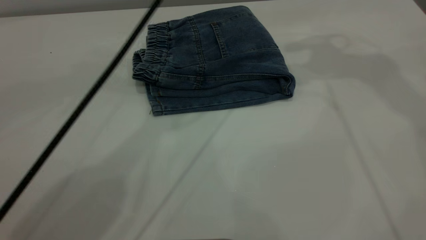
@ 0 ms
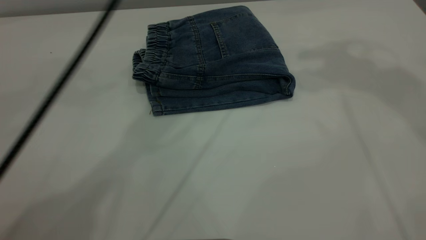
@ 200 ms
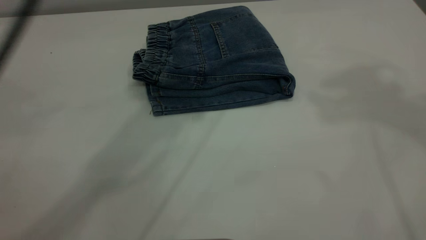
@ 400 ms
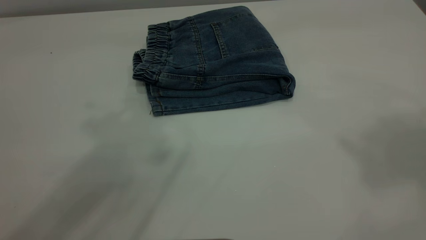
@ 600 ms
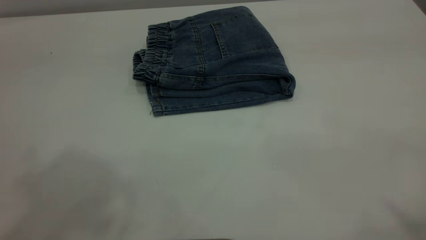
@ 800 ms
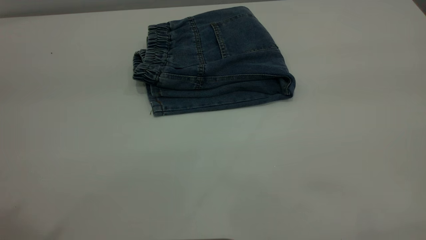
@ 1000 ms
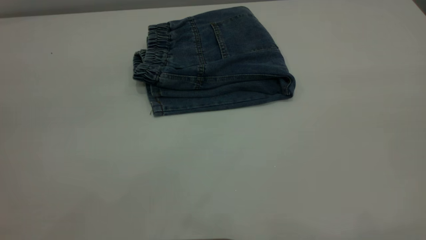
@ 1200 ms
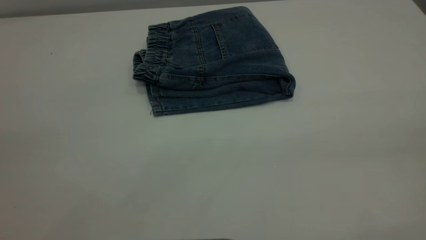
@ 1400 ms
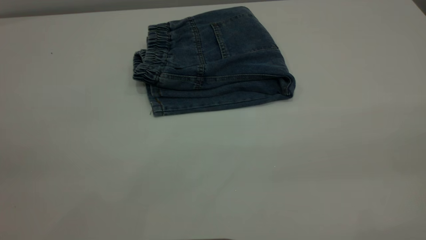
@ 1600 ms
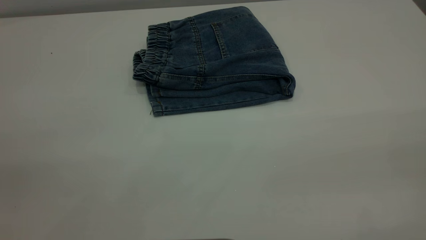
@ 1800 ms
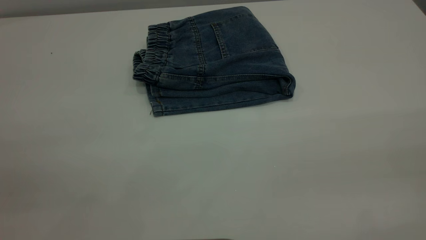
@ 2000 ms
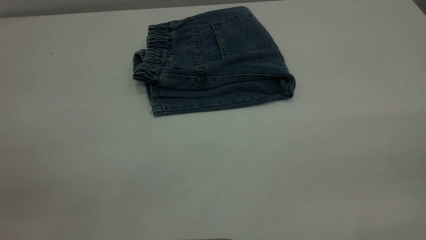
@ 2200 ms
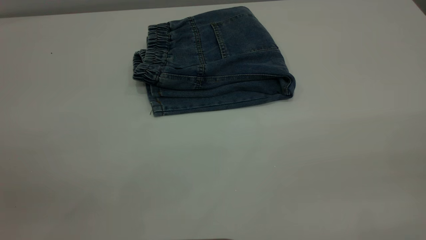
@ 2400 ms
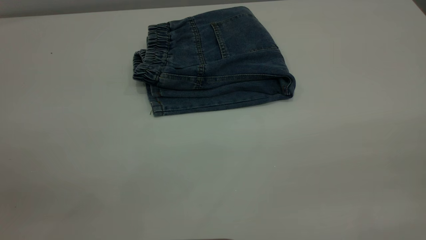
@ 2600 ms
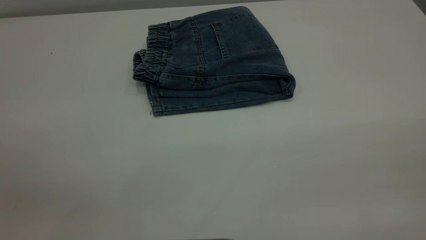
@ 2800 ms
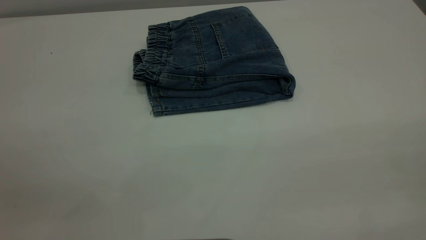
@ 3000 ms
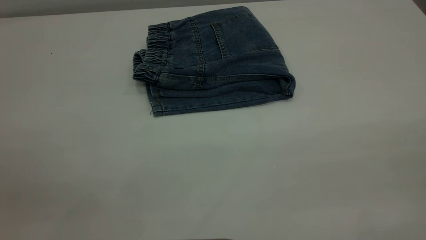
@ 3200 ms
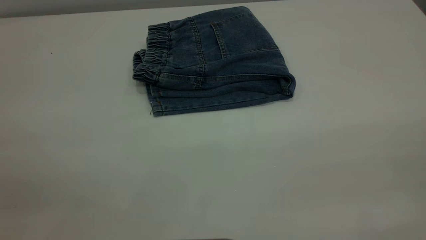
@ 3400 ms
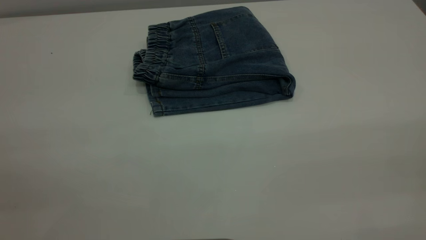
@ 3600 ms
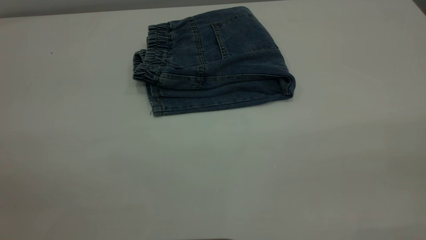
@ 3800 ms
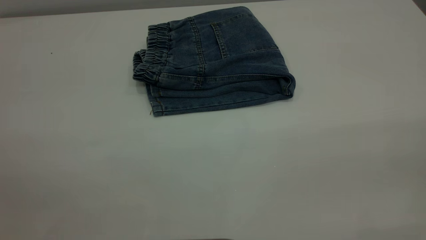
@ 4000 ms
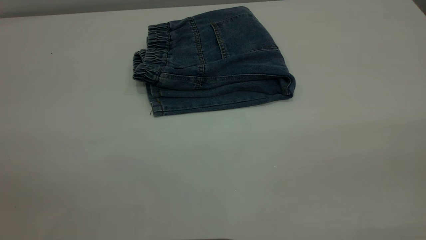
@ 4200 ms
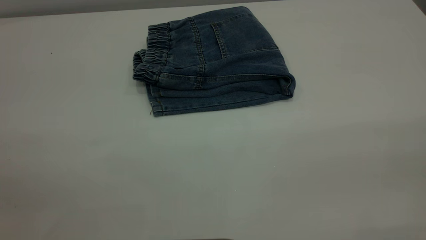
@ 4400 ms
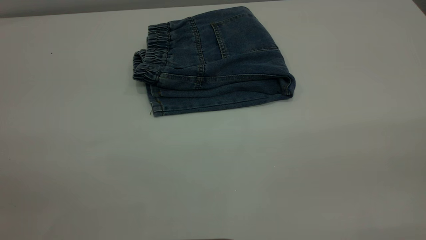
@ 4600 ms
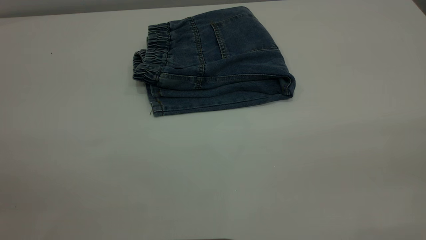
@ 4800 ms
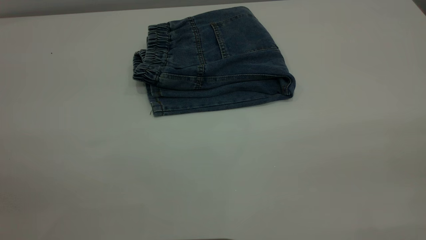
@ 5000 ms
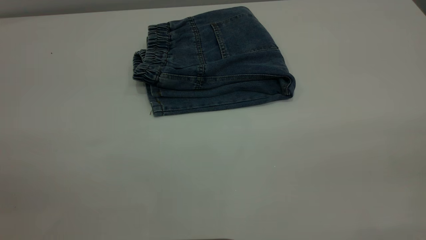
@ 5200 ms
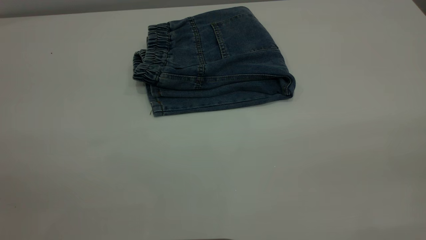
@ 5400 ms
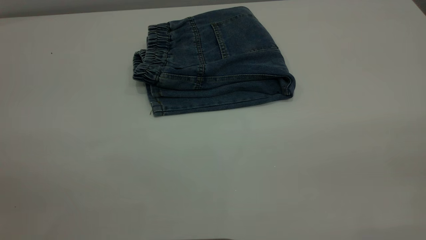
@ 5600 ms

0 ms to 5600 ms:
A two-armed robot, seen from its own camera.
0 ms to 1400 ms: The left gripper travels backward and to the left by some 50 cm.

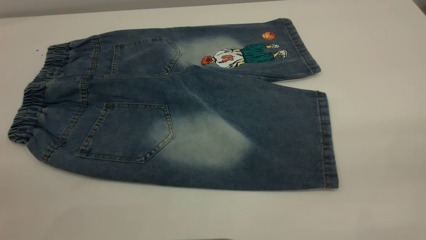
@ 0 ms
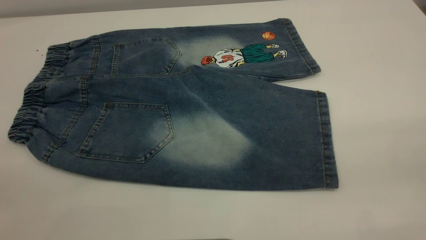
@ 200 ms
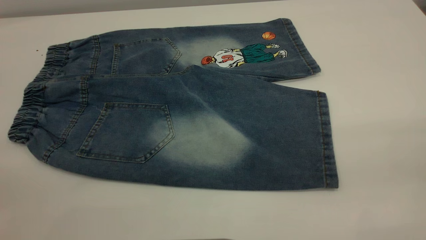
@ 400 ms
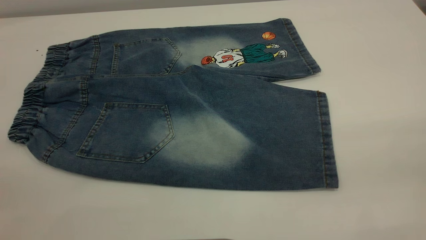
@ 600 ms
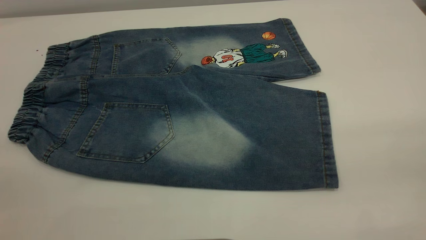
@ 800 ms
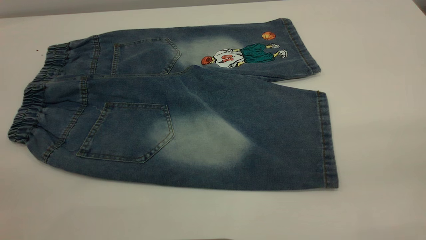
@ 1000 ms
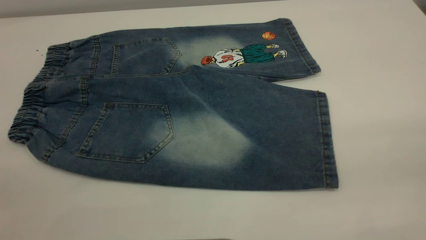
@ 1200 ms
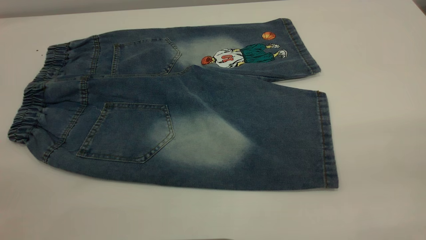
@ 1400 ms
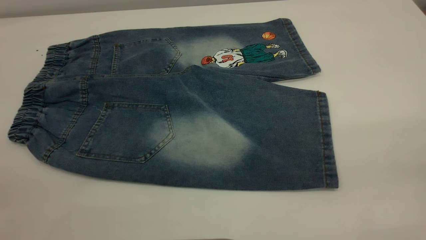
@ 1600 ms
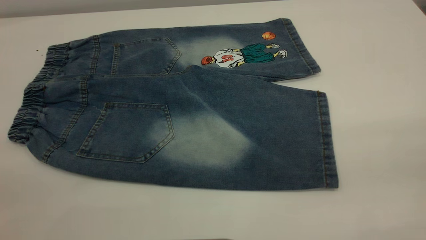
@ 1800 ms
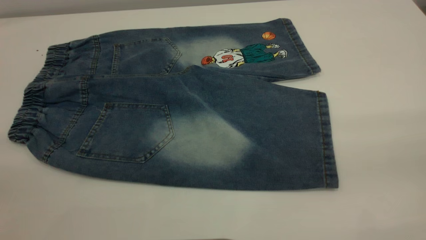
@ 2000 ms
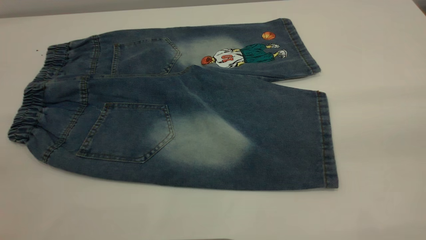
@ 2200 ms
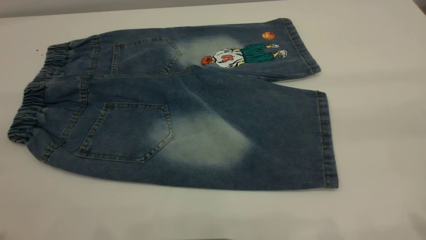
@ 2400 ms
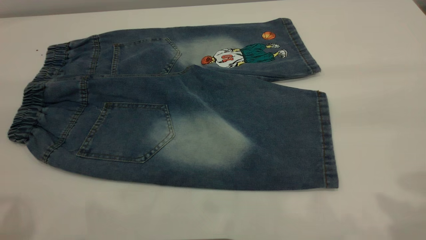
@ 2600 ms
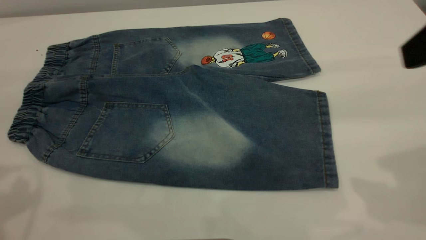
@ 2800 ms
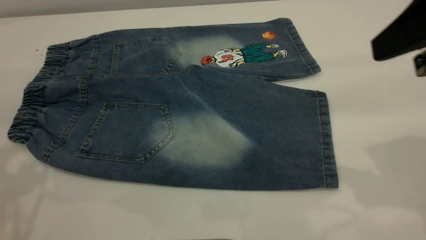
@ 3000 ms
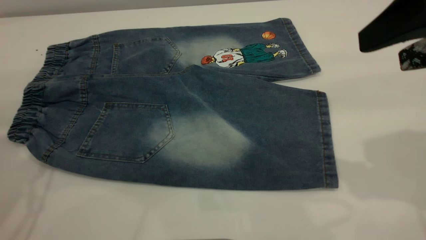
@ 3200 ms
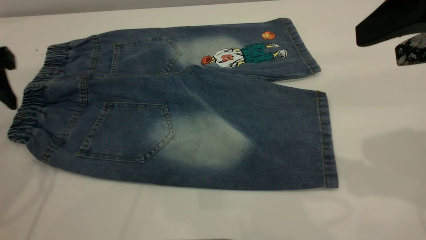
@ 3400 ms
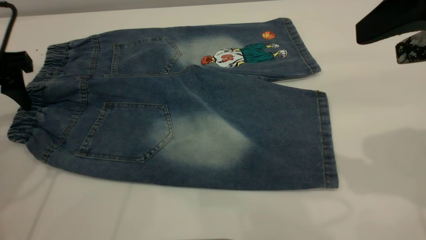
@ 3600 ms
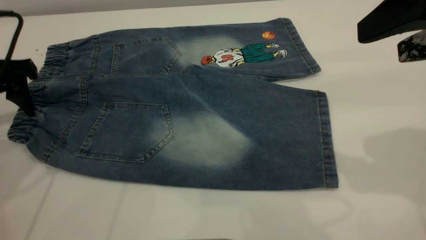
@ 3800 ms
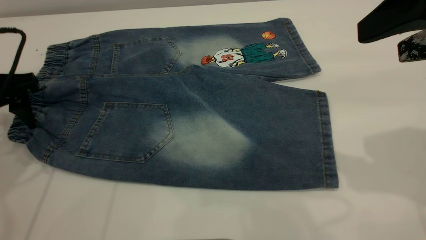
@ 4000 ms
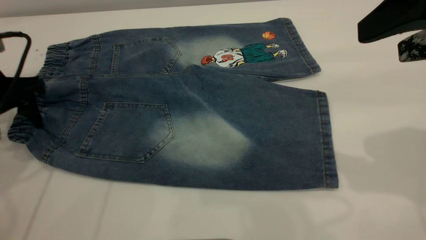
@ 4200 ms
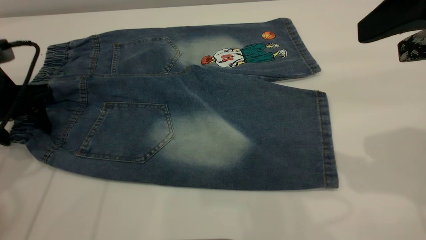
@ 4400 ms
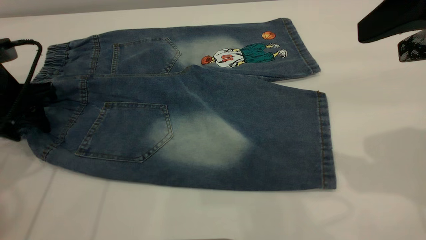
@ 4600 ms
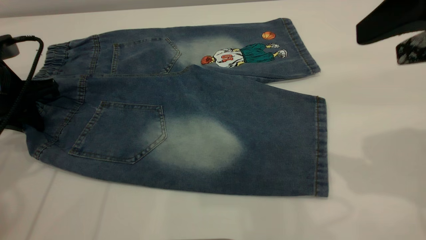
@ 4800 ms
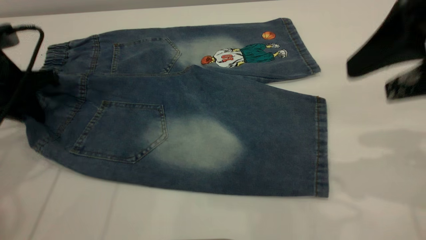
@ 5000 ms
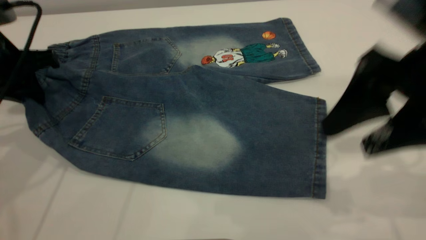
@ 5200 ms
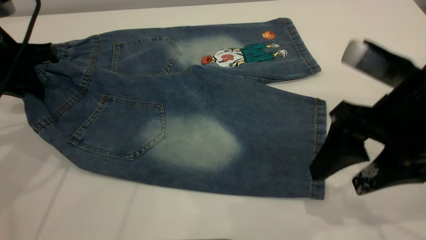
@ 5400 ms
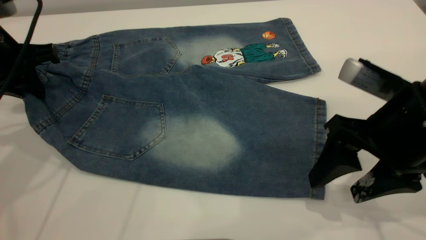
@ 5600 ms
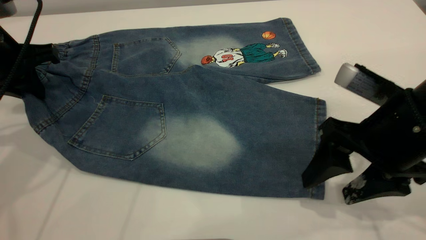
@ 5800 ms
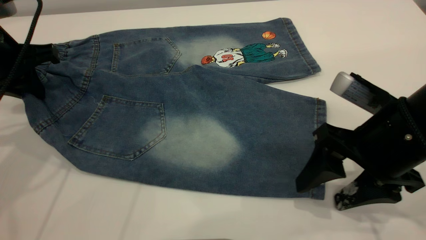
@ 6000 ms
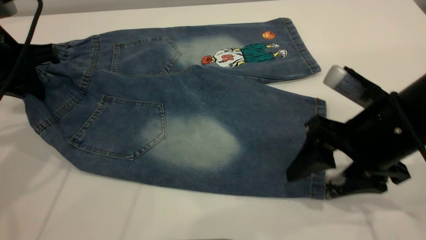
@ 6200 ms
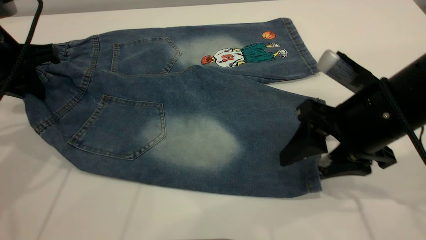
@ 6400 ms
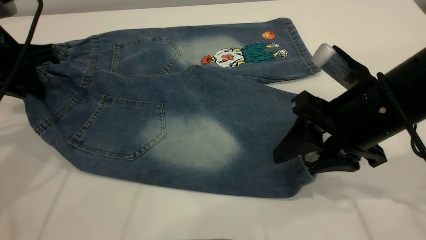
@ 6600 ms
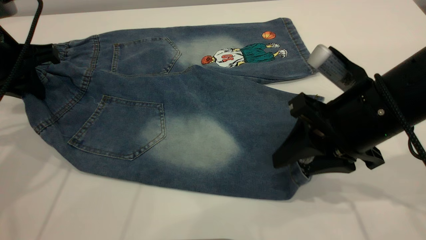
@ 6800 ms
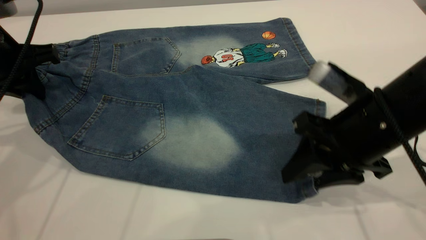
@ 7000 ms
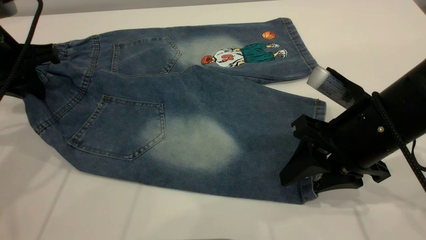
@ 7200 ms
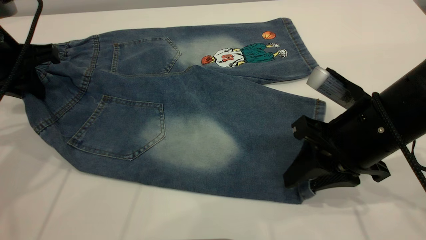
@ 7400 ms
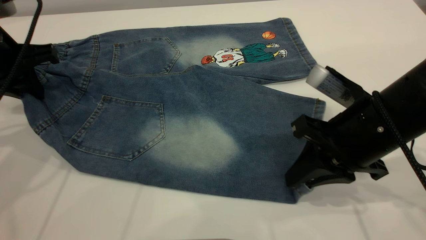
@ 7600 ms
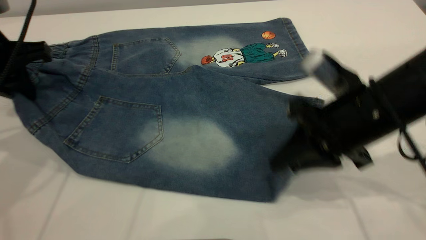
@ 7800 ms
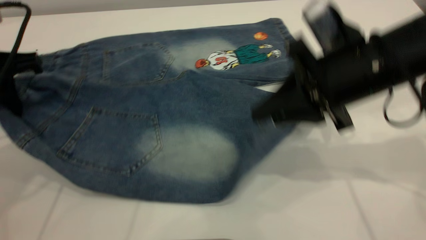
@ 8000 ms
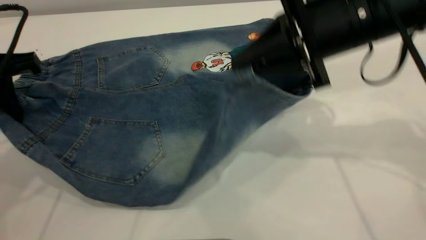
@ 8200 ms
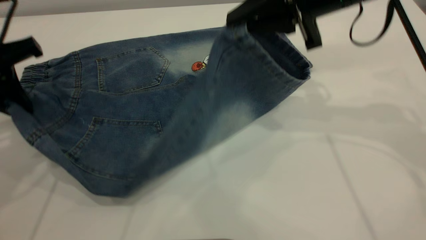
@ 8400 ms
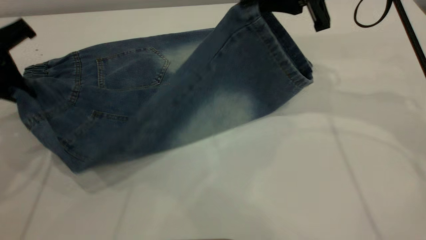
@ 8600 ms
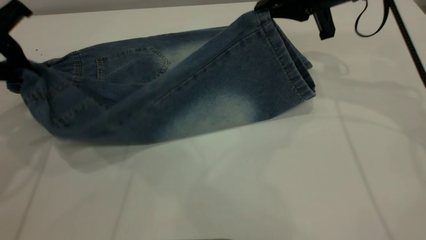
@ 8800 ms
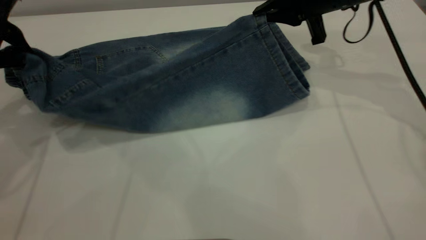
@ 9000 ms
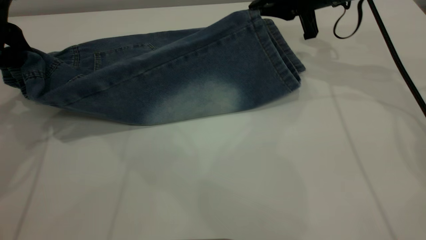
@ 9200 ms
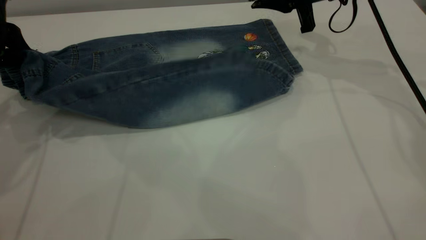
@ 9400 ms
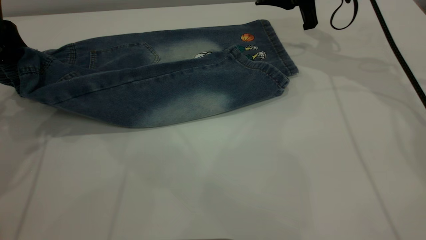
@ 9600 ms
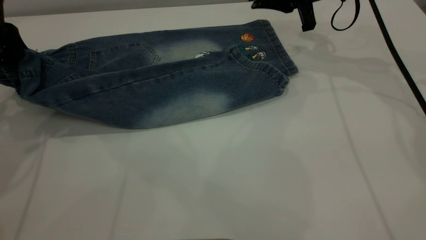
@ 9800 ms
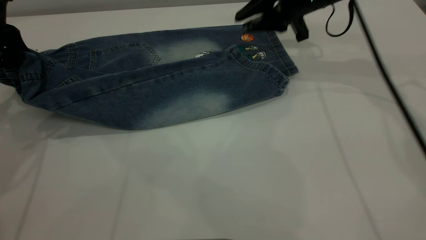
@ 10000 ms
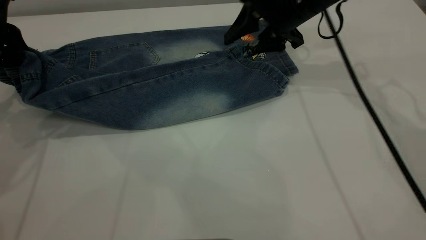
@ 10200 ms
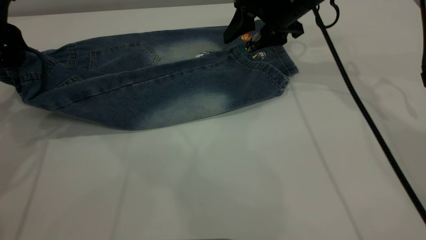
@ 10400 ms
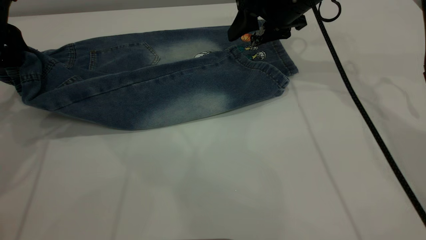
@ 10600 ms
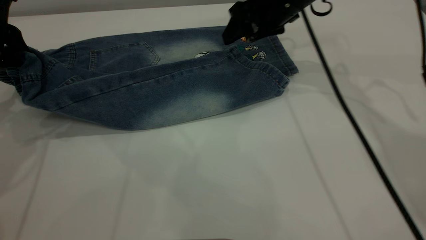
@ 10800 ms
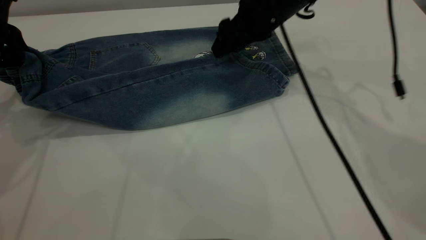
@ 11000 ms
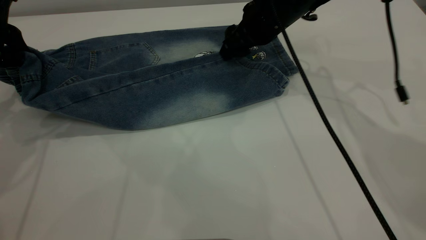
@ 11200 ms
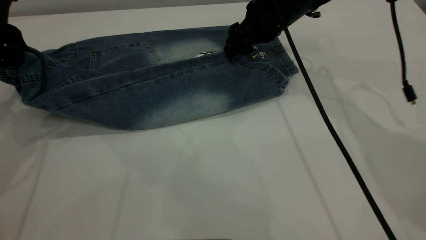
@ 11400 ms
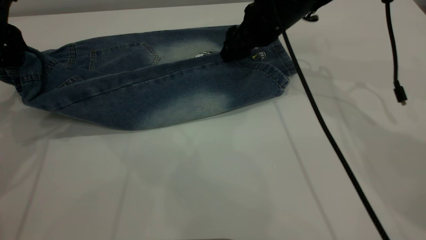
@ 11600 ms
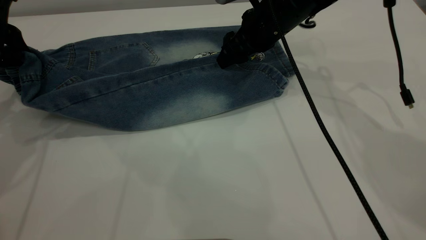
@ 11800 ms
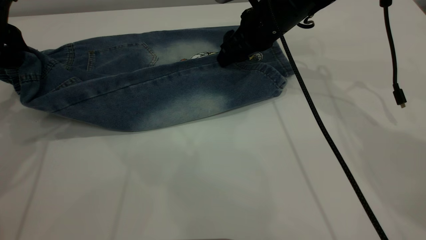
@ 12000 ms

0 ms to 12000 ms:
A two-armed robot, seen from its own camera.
0 ms to 1600 ms: Both grippers stay put.
1600 ms to 3000 ms: The right gripper heads forward, covering about 20 cm.
3000 ms to 4400 ms: The left gripper is displaced downward and forward by approximately 15 cm.
4400 ms to 6000 ms: The right gripper heads downward, covering approximately 15 cm. The left gripper travels upward by about 5 cm, and closes.
6000 ms to 7600 ms: The right gripper closes.
7600 ms to 9000 ms: The right gripper heads forward, covering roughly 20 cm.
9000 ms to 10400 ms: The right gripper shifts approximately 5 cm to the left, and opens up.
